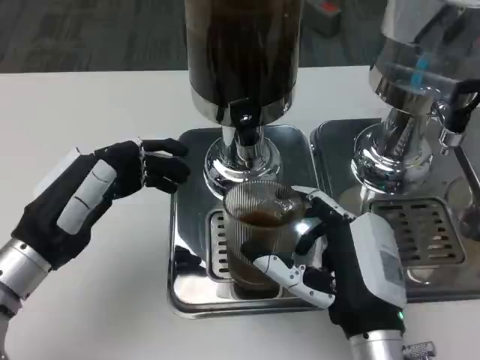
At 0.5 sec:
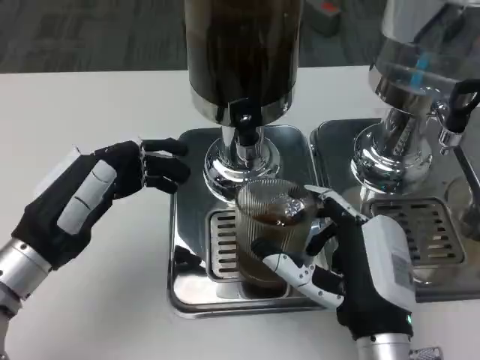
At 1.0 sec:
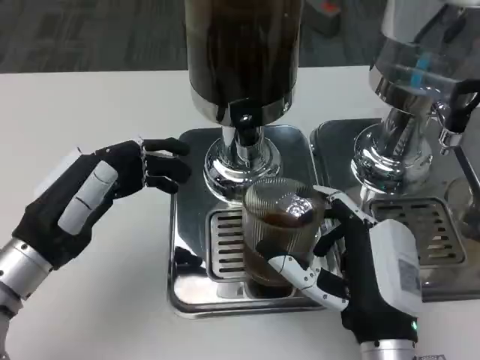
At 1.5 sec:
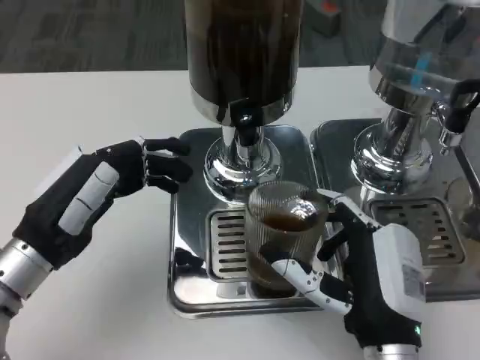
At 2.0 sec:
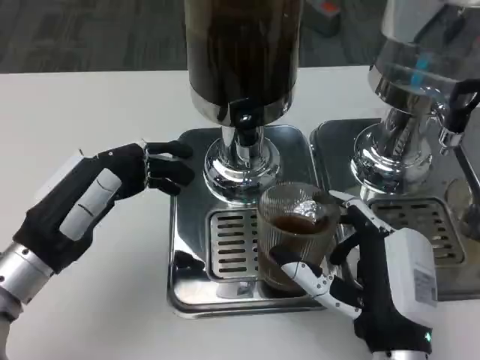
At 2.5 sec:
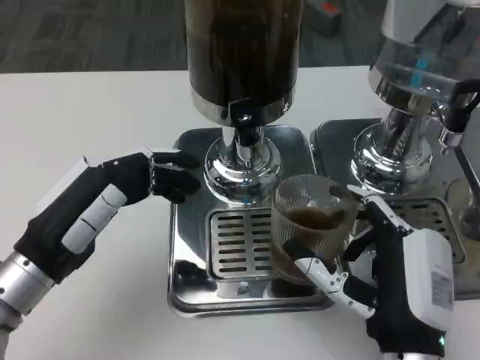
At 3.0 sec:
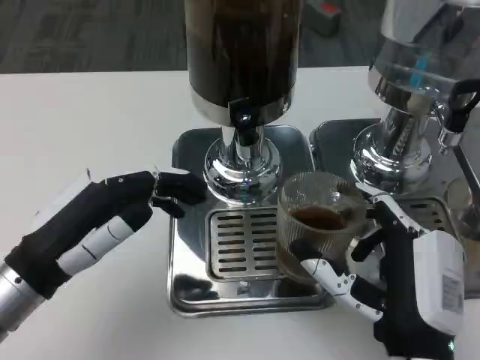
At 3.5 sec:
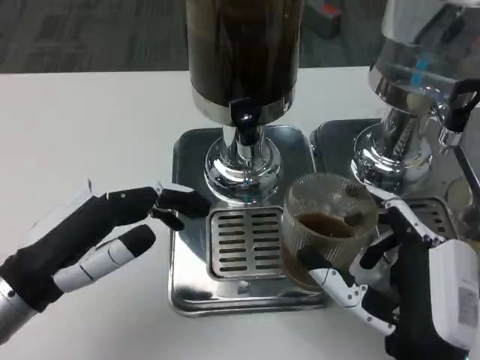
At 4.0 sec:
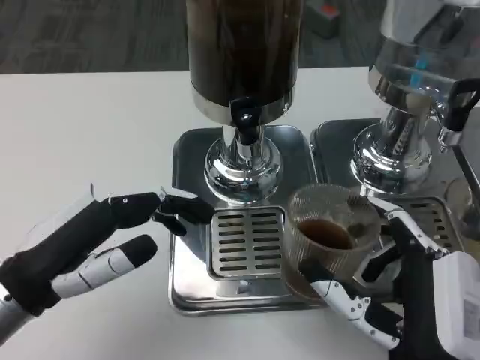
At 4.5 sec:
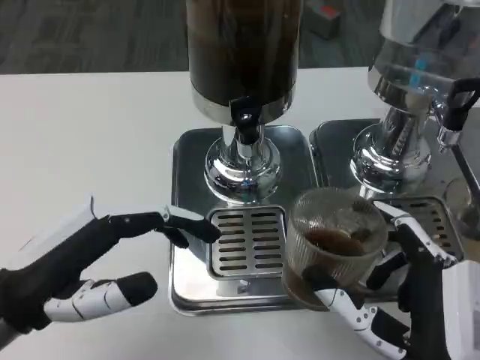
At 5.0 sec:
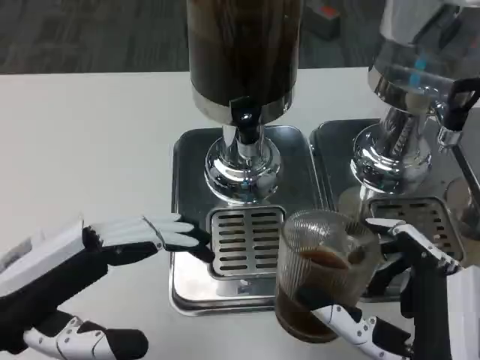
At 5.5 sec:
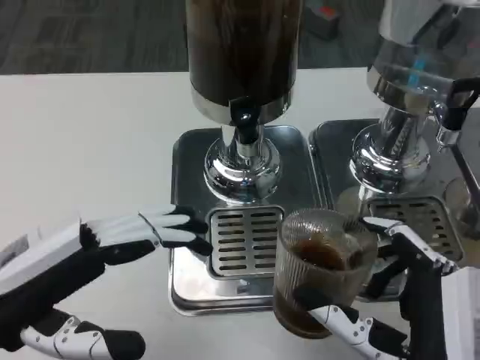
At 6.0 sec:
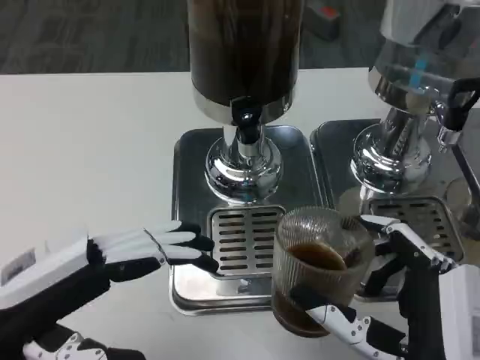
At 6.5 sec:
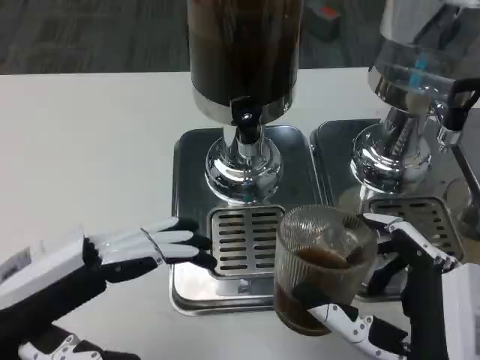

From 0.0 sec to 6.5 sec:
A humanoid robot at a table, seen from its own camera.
Task of the whole recording: Grasp the cup under the faucet to collect the drink, then remove the cup.
From 0.0 sec to 2.0 sec: The hands make only small movements.
From 2.0 sec to 4.5 sec: Both hands move backward, about 5 cm.
From 4.5 sec to 6.5 sec: The hands move only a little.

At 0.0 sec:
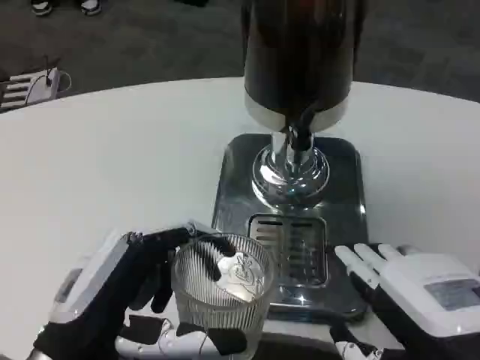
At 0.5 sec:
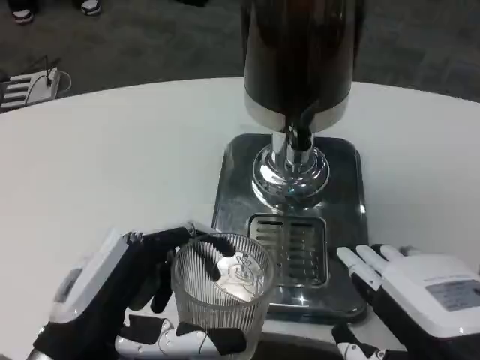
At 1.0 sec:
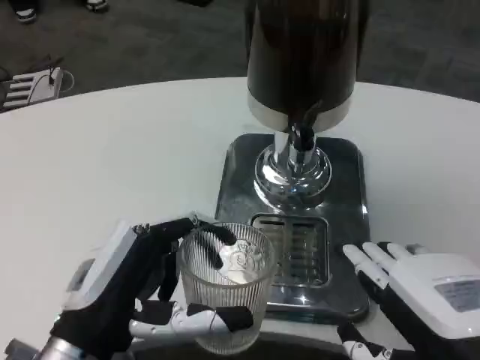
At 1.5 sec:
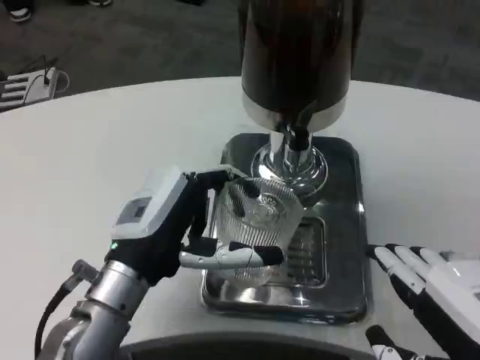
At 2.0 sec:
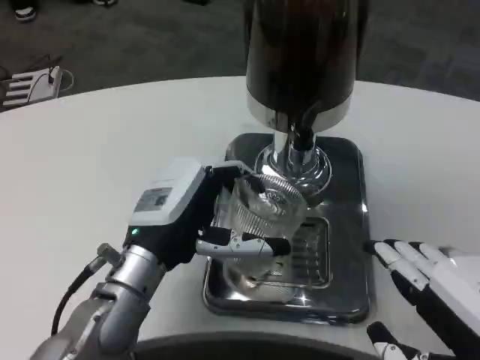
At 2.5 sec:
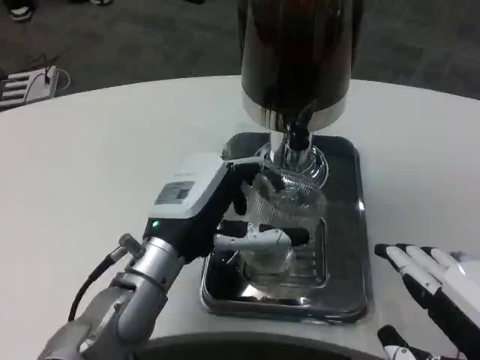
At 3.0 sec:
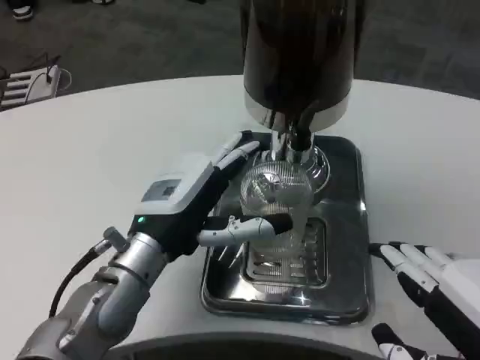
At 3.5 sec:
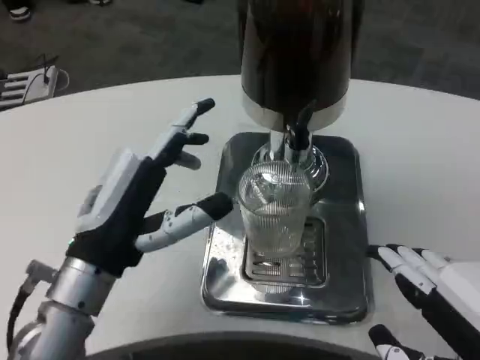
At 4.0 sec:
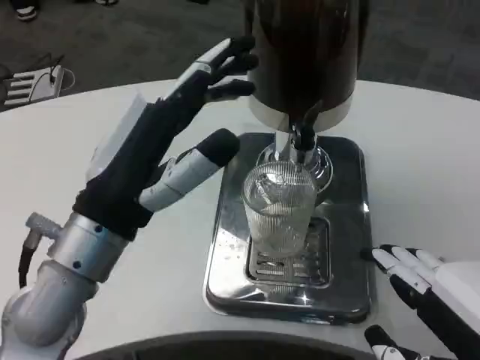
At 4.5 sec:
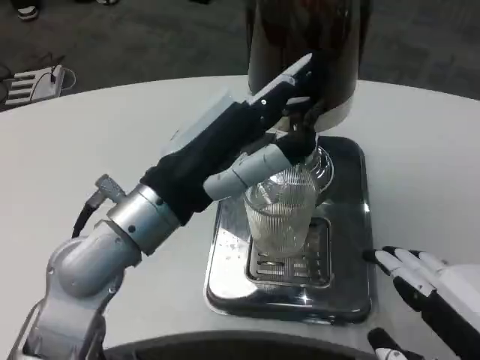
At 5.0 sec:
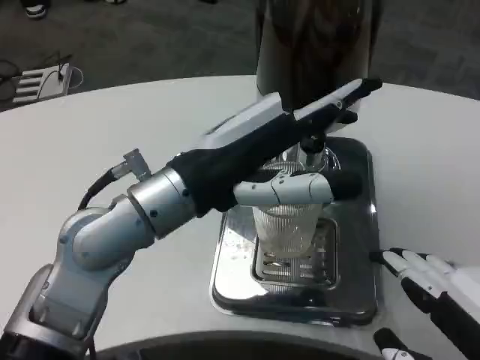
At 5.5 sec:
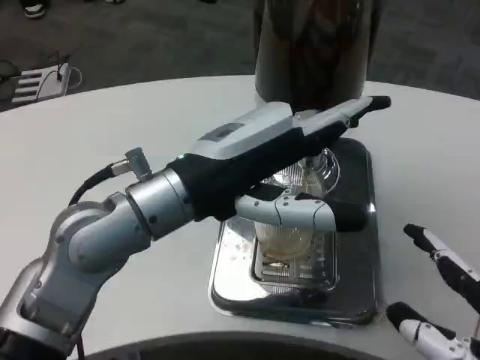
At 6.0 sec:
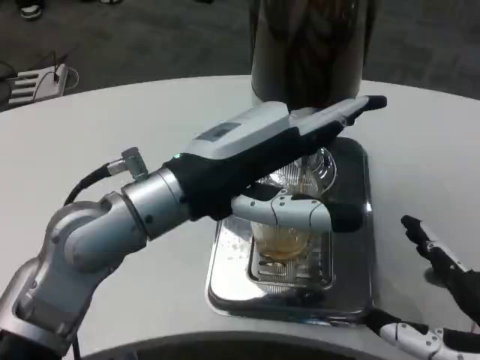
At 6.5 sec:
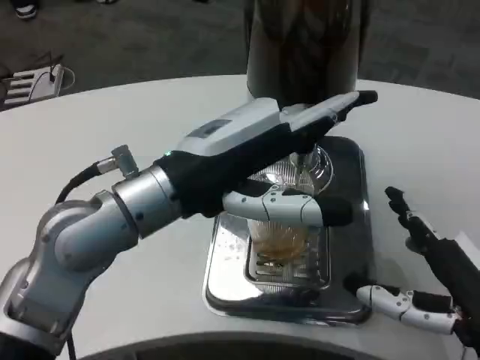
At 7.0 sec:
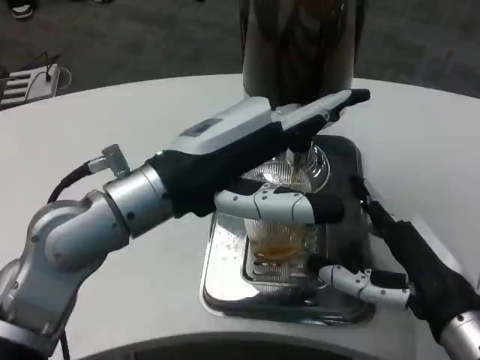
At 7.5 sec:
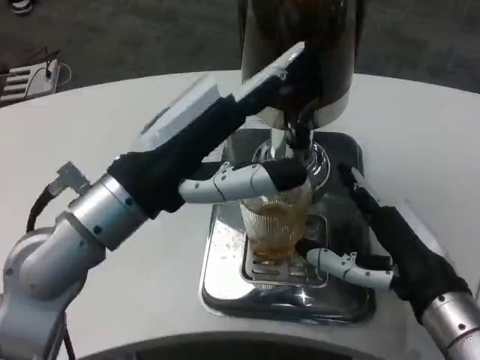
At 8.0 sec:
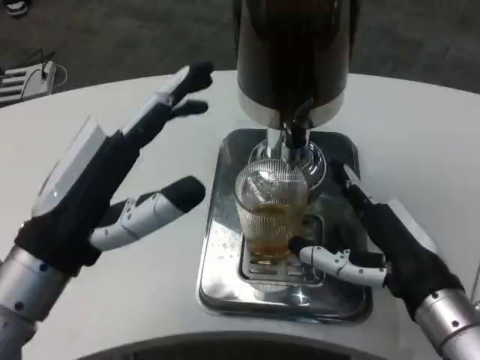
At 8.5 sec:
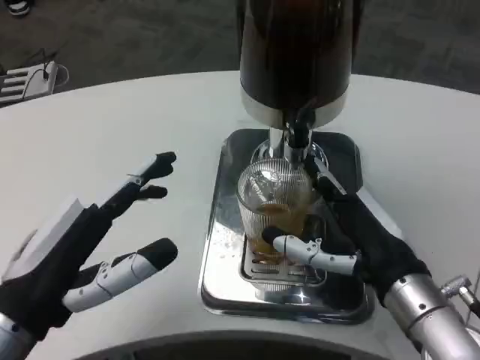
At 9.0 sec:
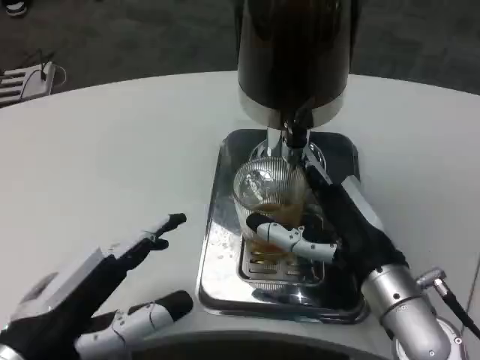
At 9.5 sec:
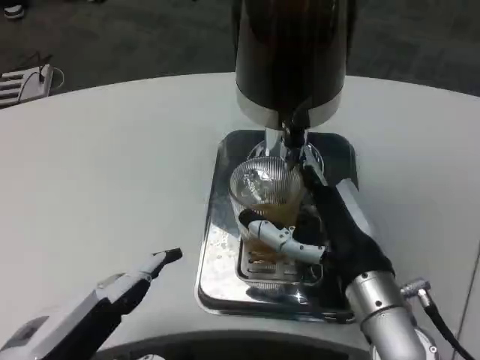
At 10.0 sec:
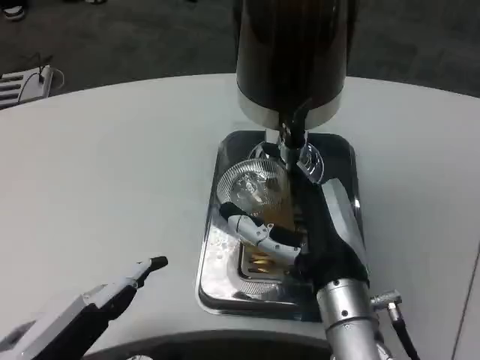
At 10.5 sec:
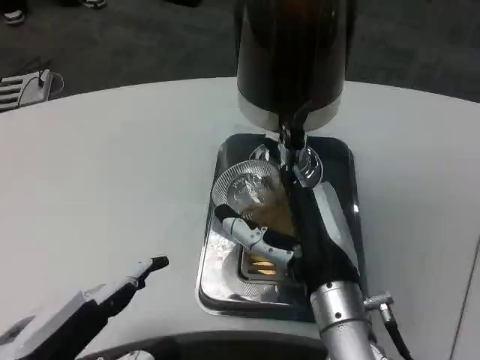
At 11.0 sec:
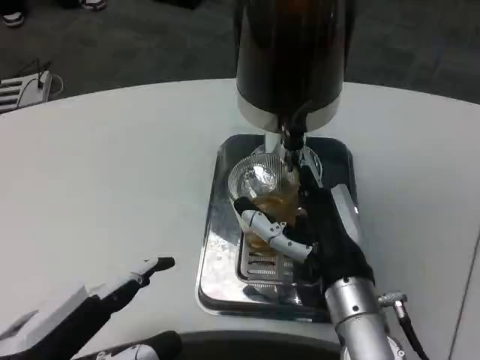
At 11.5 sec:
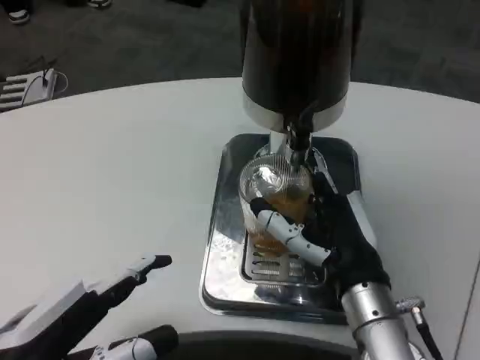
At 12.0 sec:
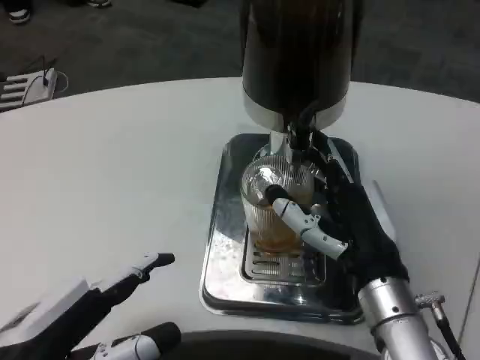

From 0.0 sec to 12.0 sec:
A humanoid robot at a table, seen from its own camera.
Task of the whole recording: Grasp the cup under the faucet to collect the drink, then remove the cup.
From 0.0 sec to 2.0 sec: The left hand is displaced forward and to the right by roughly 15 cm.
From 2.0 sec to 4.0 sec: The left hand is displaced upward and backward by approximately 10 cm.
From 4.0 sec to 6.0 sec: The left hand shifts by approximately 5 cm. The right hand moves downward, roughly 5 cm.
From 6.0 sec to 8.0 sec: The right hand heads forward and to the left, covering approximately 10 cm, while the left hand heads to the left, downward and backward, covering some 10 cm.
From 8.0 sec to 10.0 sec: The right hand heads to the left, covering approximately 10 cm; the left hand goes some 10 cm backward.

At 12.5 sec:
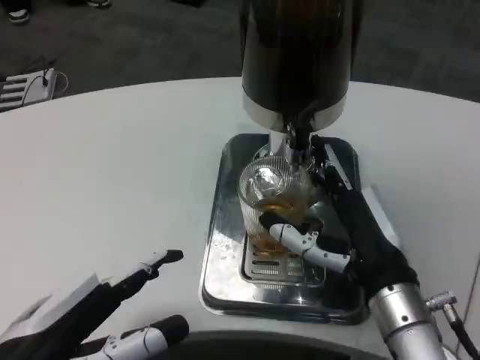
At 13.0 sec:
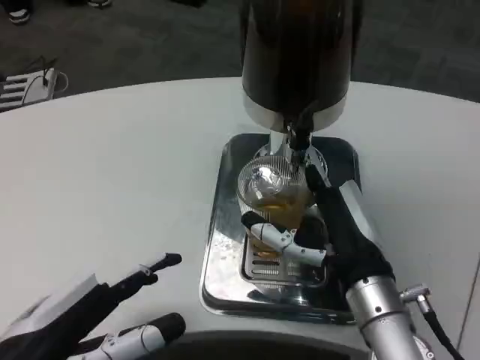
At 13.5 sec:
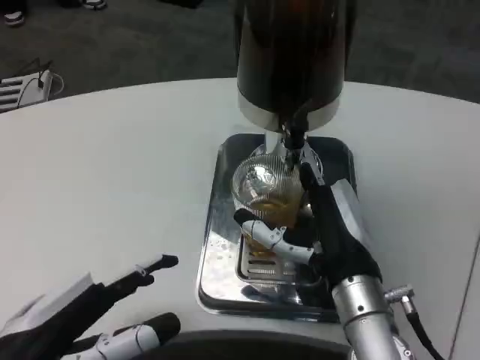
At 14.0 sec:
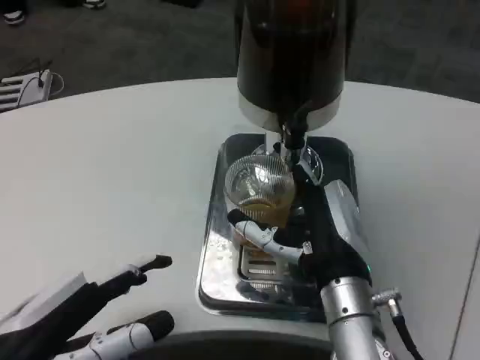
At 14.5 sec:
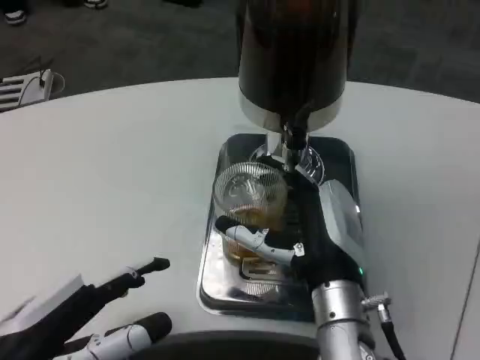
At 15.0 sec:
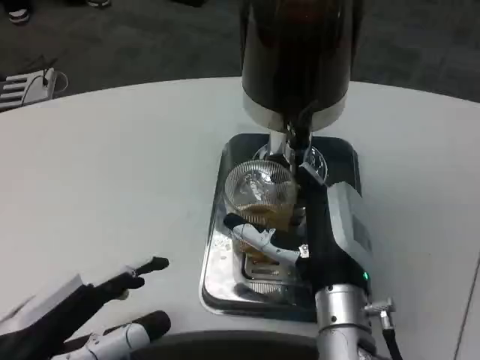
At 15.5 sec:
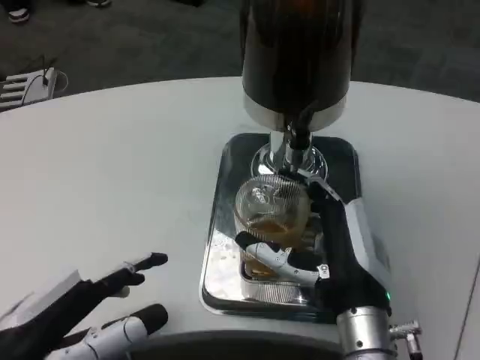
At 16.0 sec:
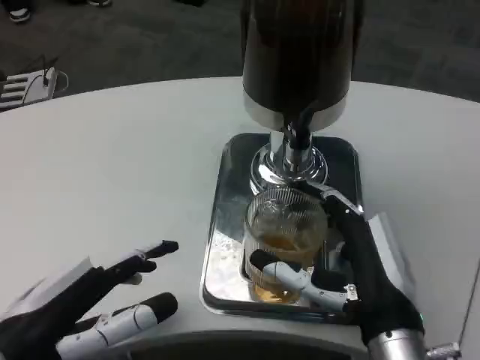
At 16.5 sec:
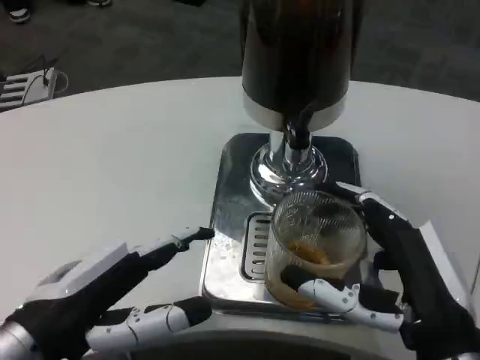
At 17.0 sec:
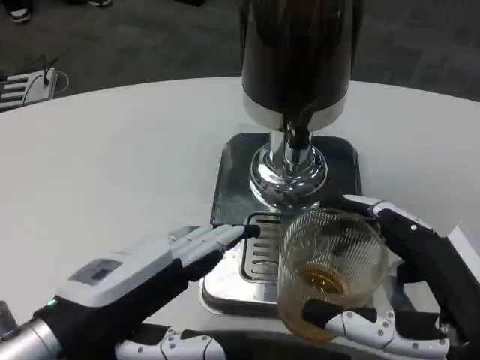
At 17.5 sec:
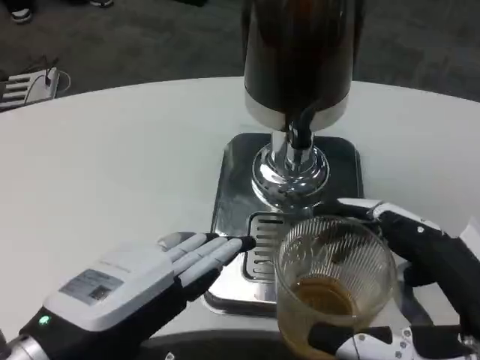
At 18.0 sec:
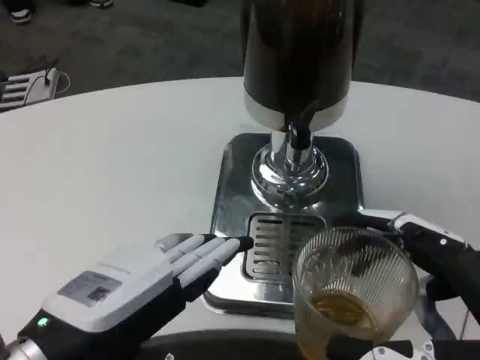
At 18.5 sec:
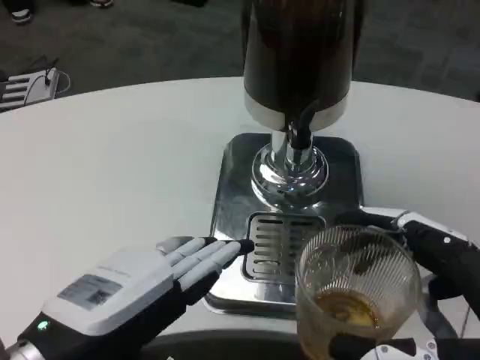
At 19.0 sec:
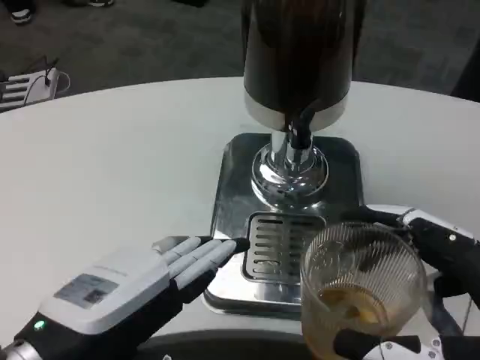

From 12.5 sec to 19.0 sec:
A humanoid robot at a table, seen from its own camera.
Task of the whole recording: Grasp the cup under the faucet to collect the drink, then remove the cup.
From 12.5 sec to 14.5 sec: The right hand heads to the left, covering about 5 cm.
From 14.5 sec to 17.0 sec: The left hand changes place by approximately 5 cm; the right hand shifts approximately 20 cm backward and to the right.
From 17.0 sec to 19.0 sec: The right hand ends up approximately 5 cm from where it was.
